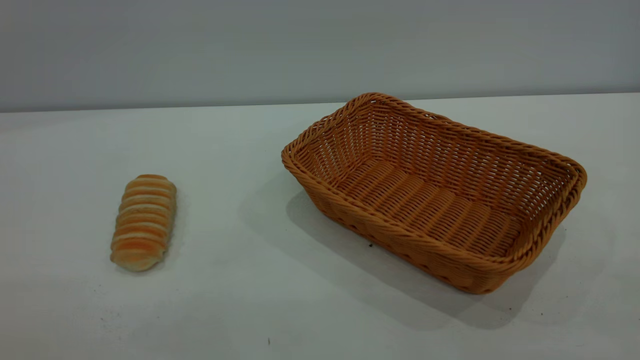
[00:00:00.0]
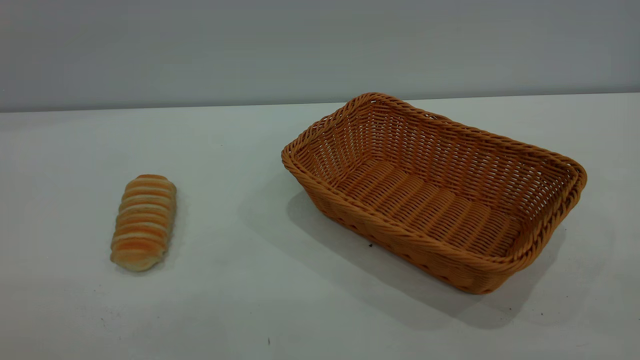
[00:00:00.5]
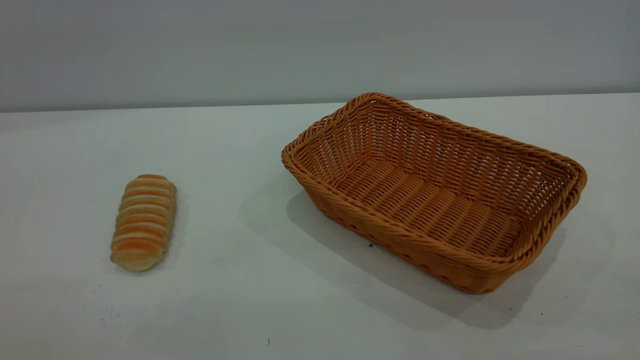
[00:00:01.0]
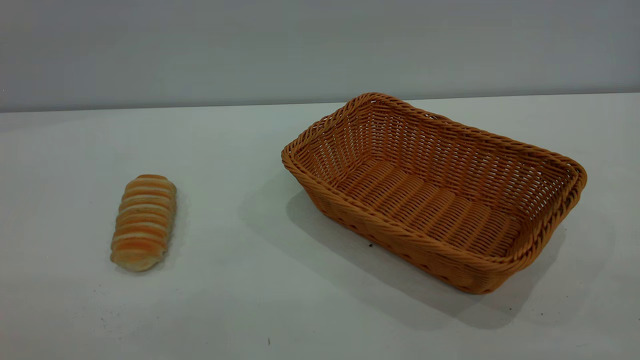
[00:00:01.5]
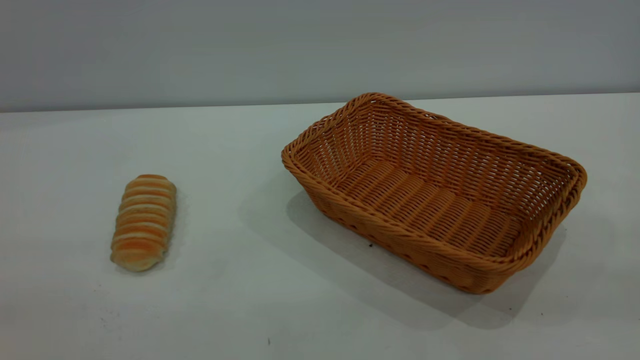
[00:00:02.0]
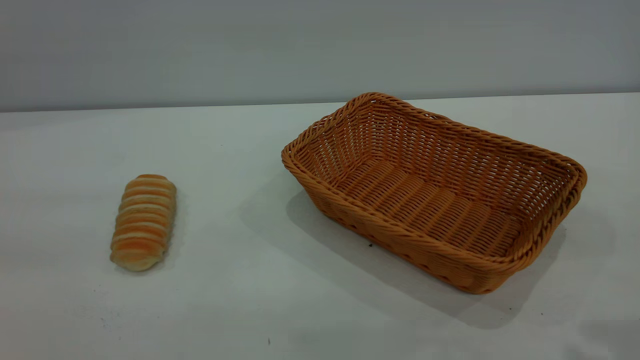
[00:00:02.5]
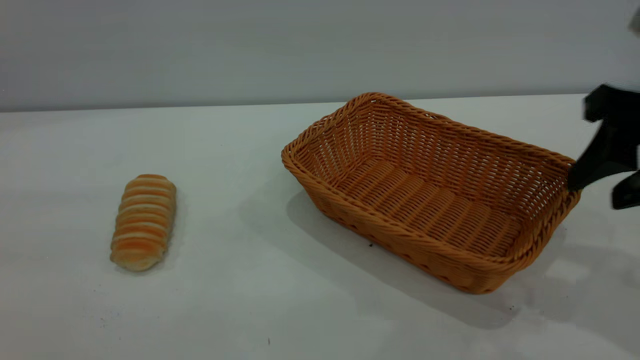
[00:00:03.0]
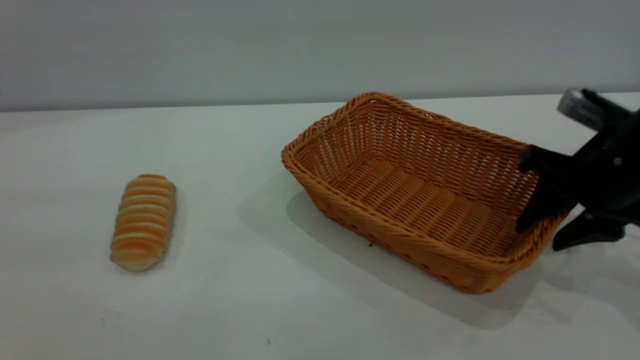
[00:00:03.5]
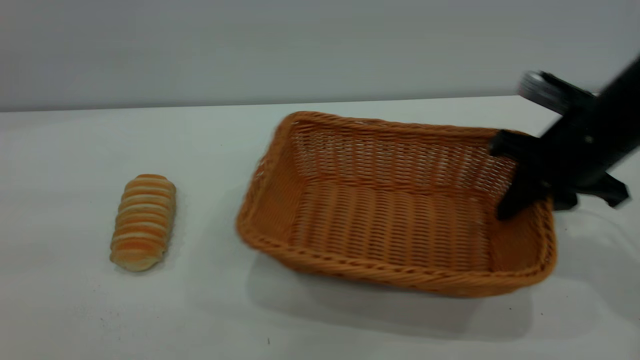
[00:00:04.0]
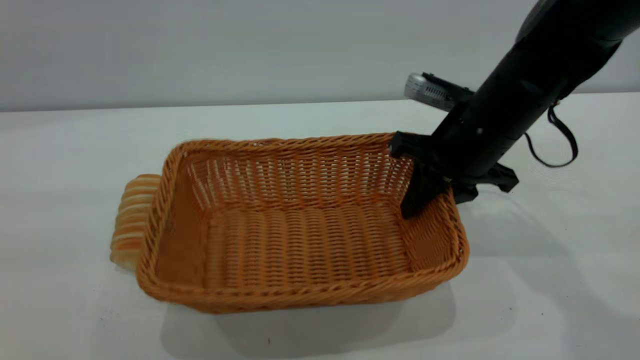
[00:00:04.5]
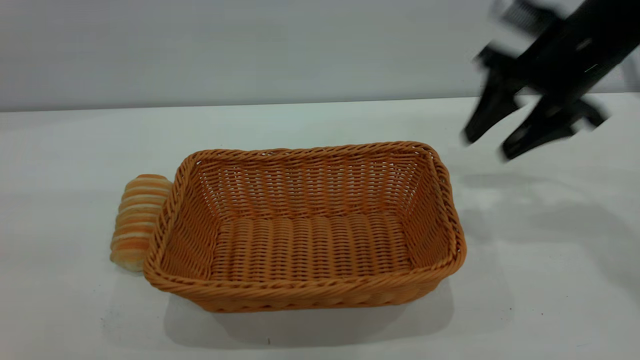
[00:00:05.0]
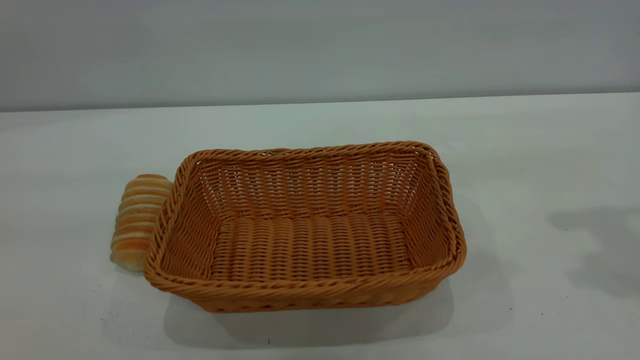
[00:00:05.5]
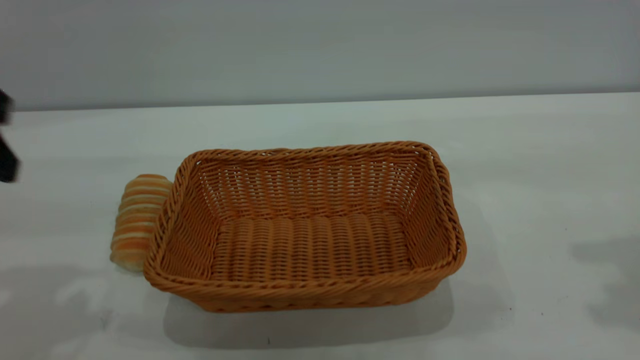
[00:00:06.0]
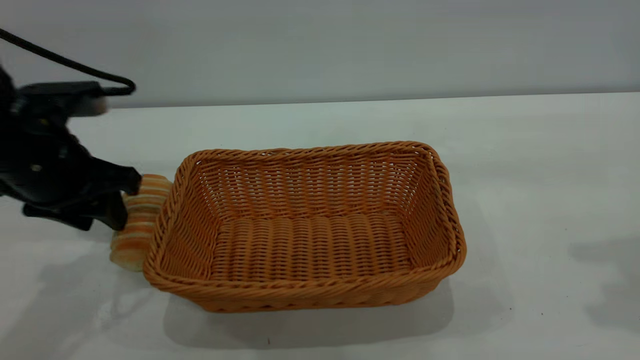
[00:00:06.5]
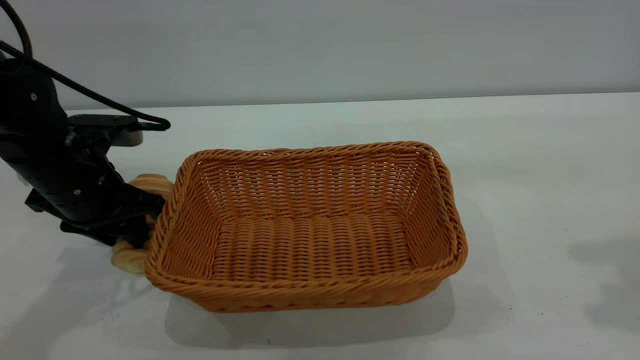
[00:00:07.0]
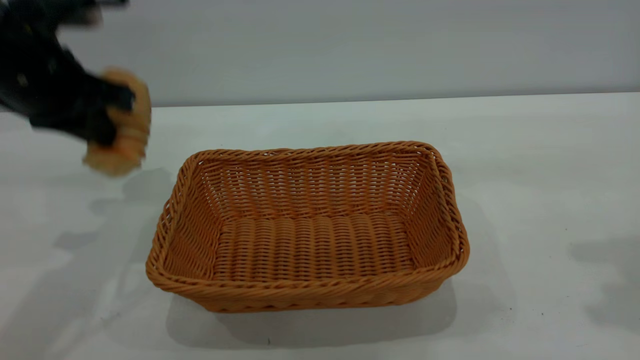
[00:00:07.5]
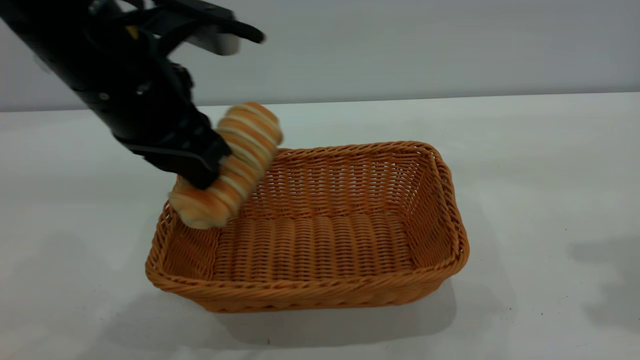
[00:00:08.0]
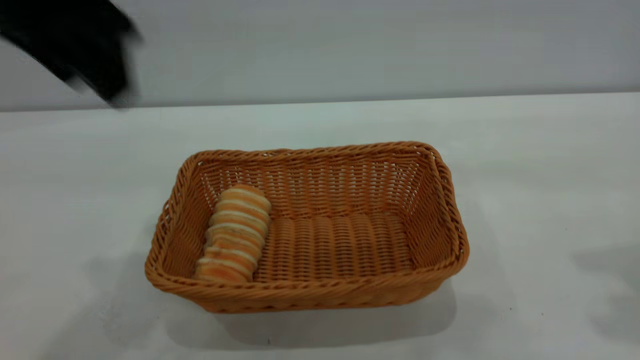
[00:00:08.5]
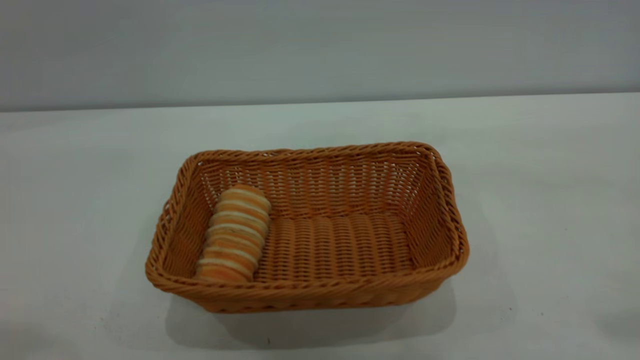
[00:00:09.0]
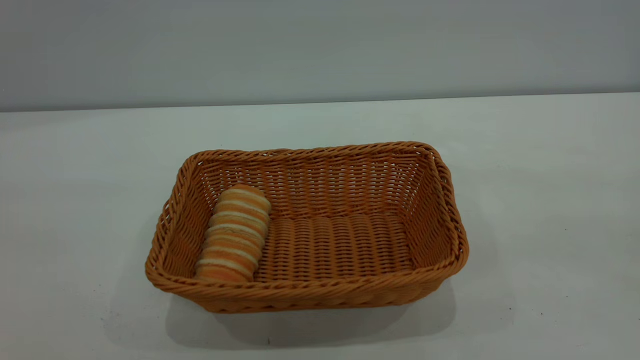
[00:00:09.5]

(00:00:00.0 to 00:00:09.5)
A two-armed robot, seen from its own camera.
Task of the whole recording: One hand grasps the yellow basket and places it in the middle of the table, while the other hand picks up the long bread and puts it into the yellow basket.
Step, 00:00:00.0 - 00:00:04.5: Move the basket to the center of view.
Step, 00:00:07.5 - 00:00:08.0: place the bread into the basket.
00:00:02.0 - 00:00:04.0: The left gripper travels forward by roughly 5 cm. Meanwhile the right gripper shifts about 40 cm forward and downward, and closes its fingers.
00:00:04.0 - 00:00:05.5: The right gripper shifts some 20 cm upward and to the right, and opens up. The left gripper heads forward, covering some 5 cm.
00:00:05.5 - 00:00:07.5: The left gripper shifts roughly 25 cm forward and downward, and closes up.
00:00:07.5 - 00:00:09.5: The left gripper is displaced backward and upward by some 40 cm, and opens, while the right gripper travels backward by some 20 cm.
